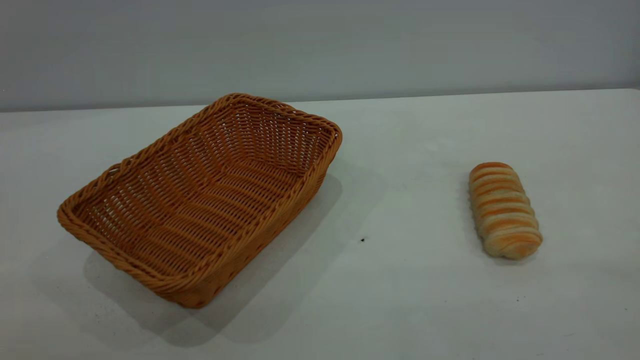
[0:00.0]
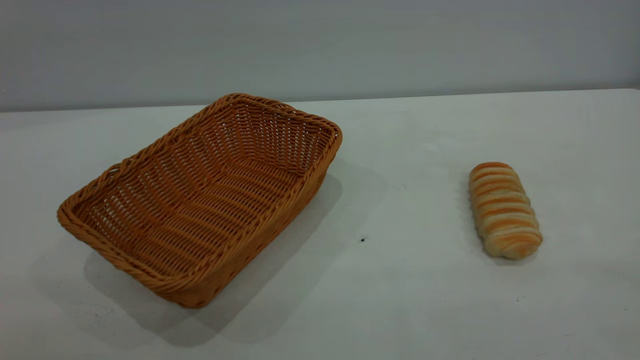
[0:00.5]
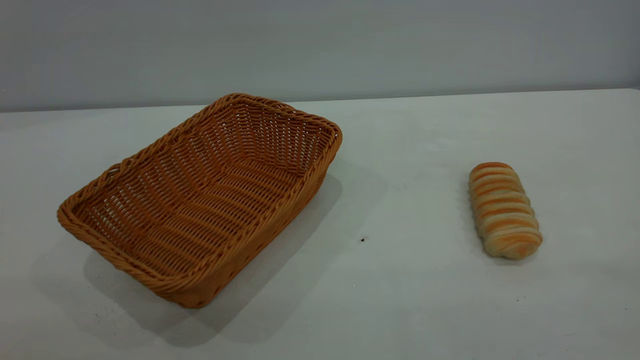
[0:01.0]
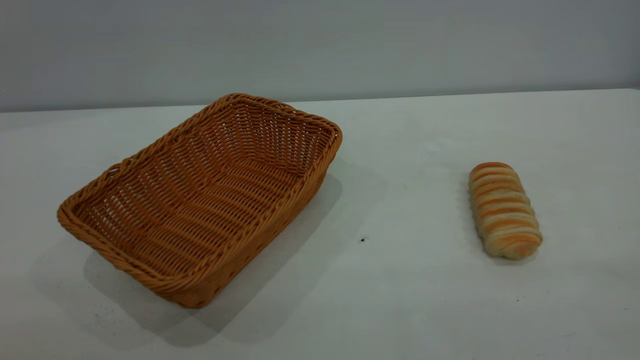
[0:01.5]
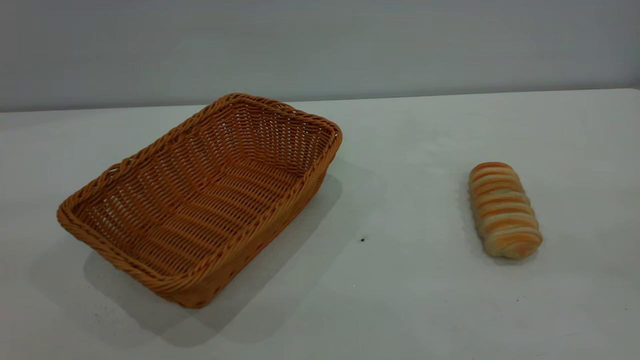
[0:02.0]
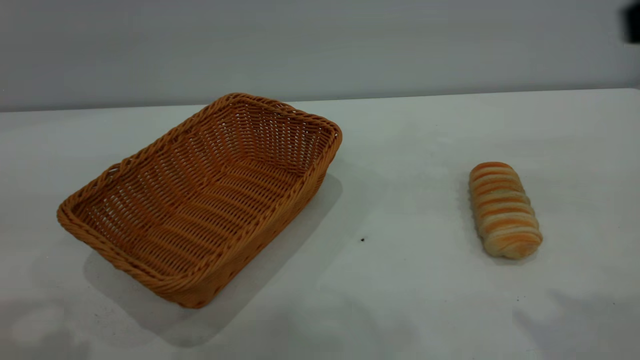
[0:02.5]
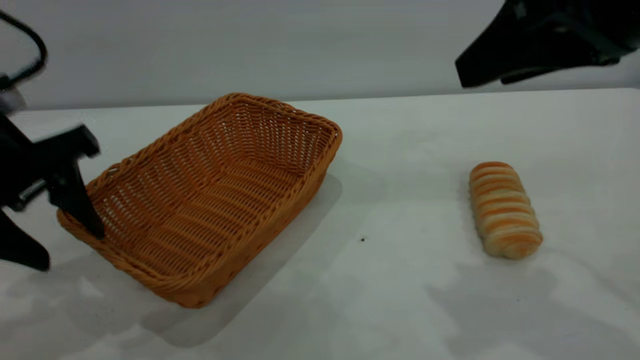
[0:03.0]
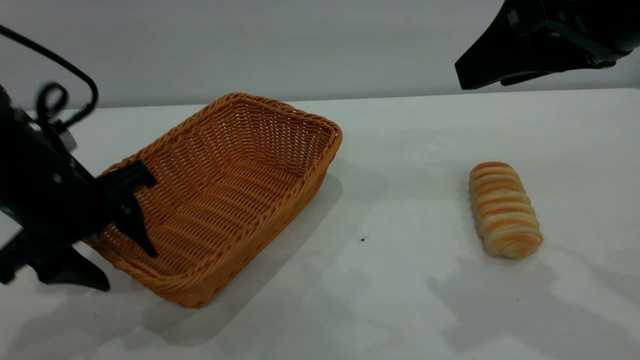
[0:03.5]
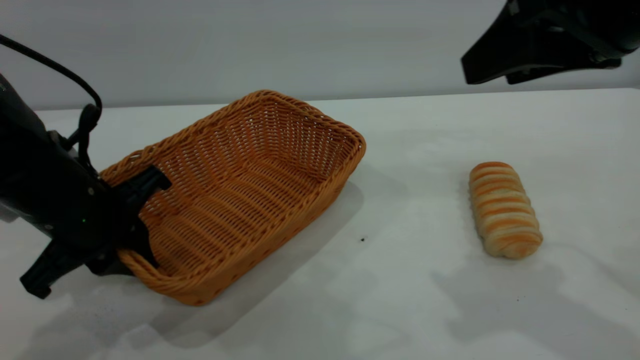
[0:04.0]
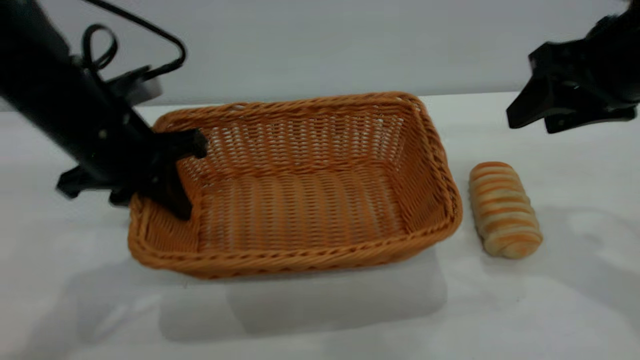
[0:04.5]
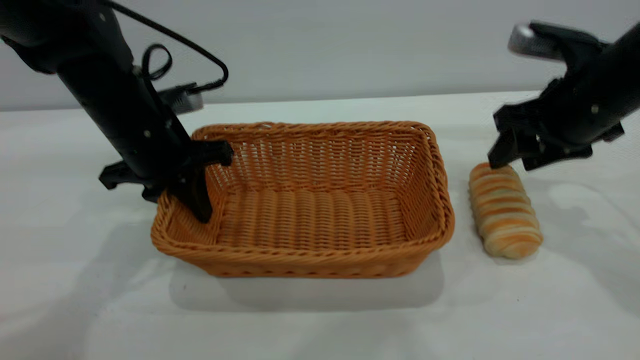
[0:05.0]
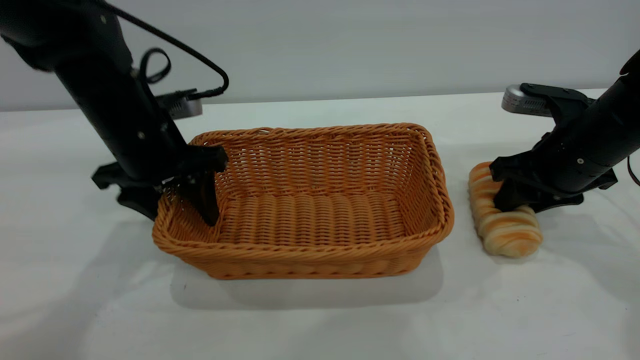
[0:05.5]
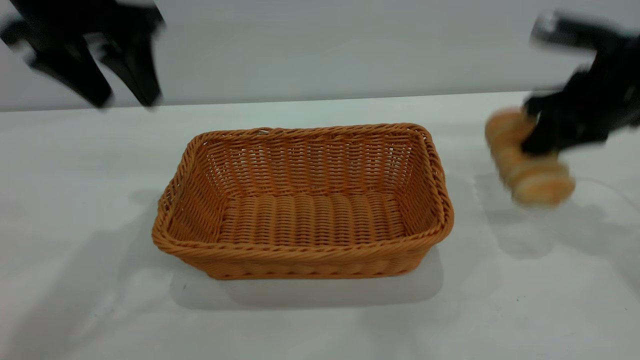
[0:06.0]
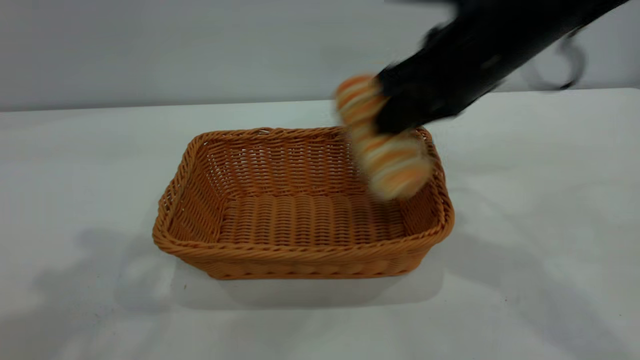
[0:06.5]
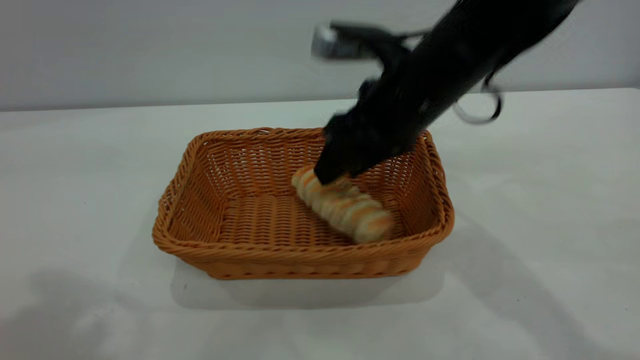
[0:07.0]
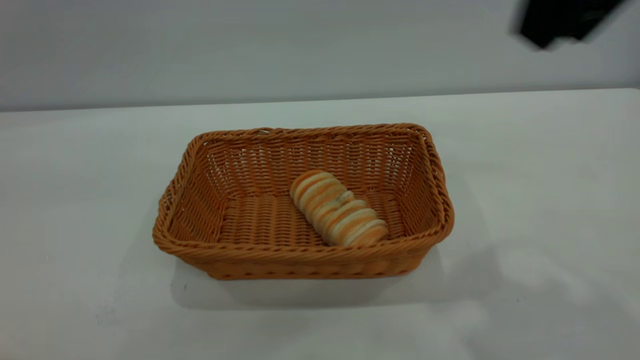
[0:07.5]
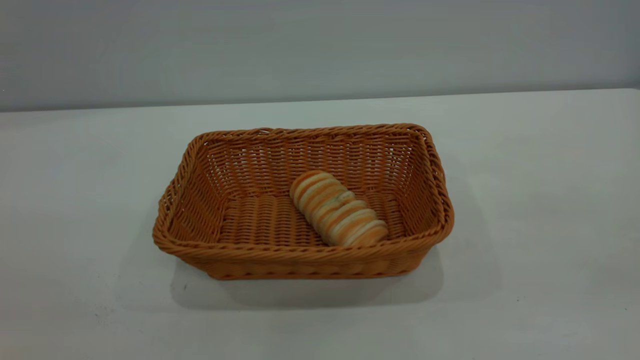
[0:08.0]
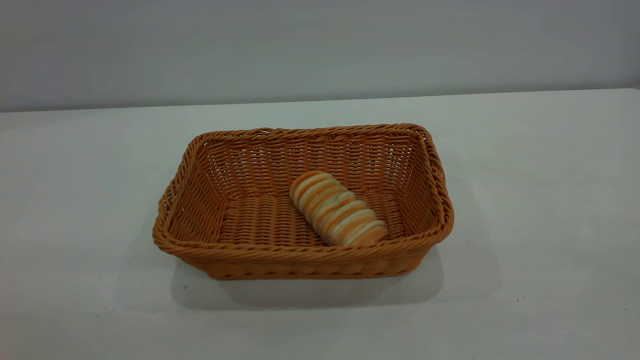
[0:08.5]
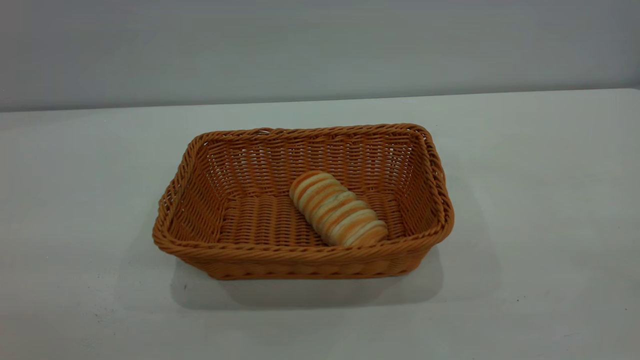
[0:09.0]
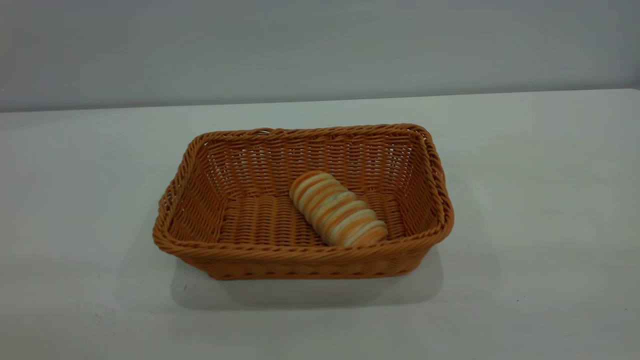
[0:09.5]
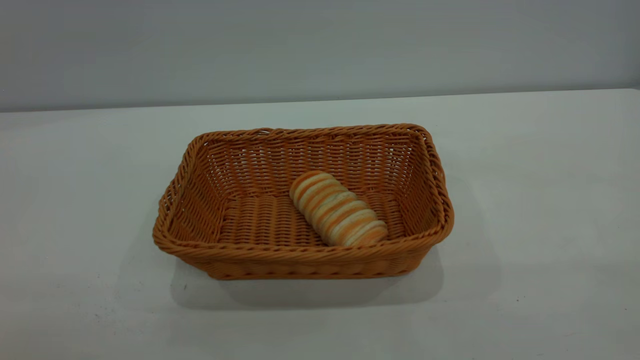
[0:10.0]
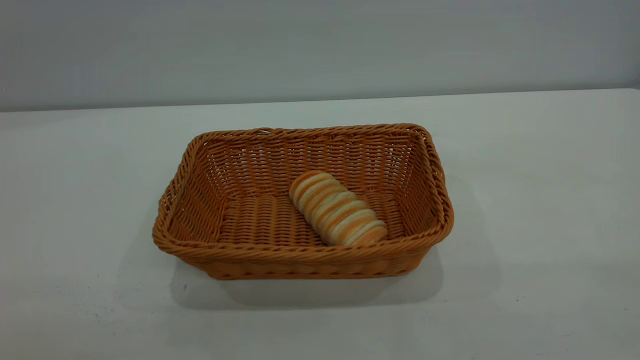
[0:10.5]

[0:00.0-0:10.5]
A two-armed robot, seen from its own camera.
Task of the whole recording: One hand grasps the yellow basket and places it in the middle of the table, while the other hand picks up the long bread and puts it into the yellow basket.
Step, 0:00.0 to 0:05.5: Move the basket to the center of view.
Step, 0:06.5 to 0:07.0: place the bread into the basket.
0:02.0 to 0:04.0: The left gripper moves downward and forward, some 35 cm, and closes up. Meanwhile the right gripper moves forward, to the left and downward, about 20 cm.
0:04.0 to 0:06.5: The left gripper heads upward, covering some 30 cm, and opens, while the right gripper travels forward, to the left and downward by roughly 15 cm, and closes its fingers.
0:06.5 to 0:08.5: The left gripper goes roughly 25 cm backward and downward. Meanwhile the right gripper shifts roughly 35 cm backward and to the right, and opens.
